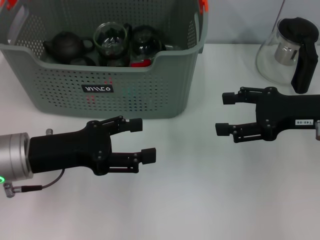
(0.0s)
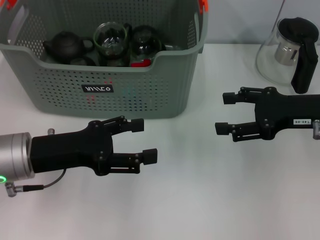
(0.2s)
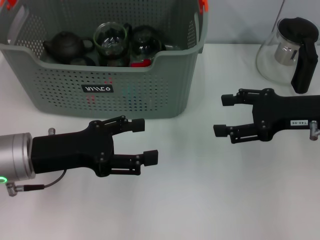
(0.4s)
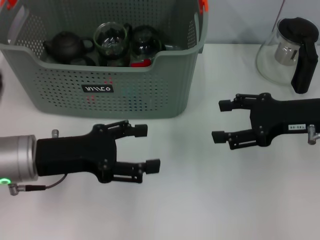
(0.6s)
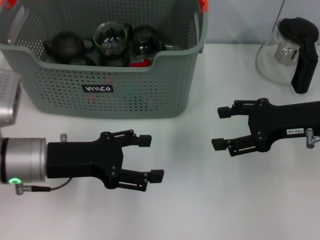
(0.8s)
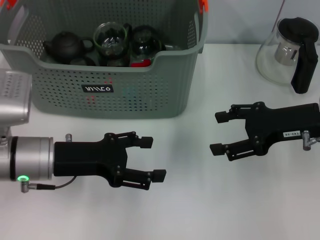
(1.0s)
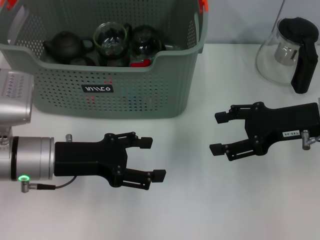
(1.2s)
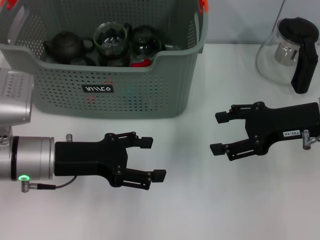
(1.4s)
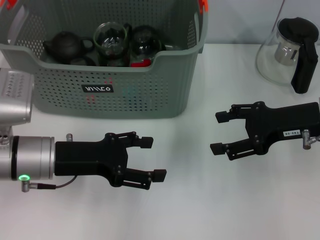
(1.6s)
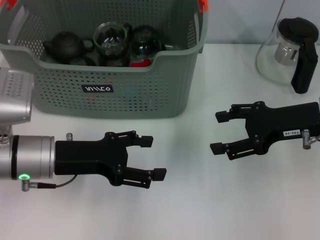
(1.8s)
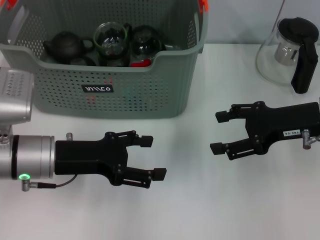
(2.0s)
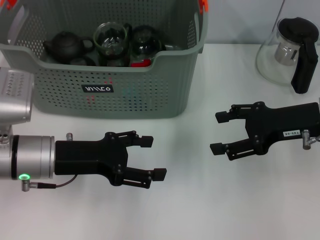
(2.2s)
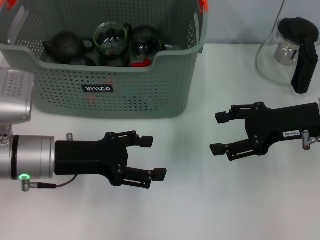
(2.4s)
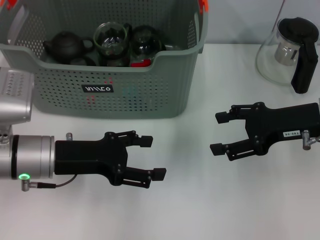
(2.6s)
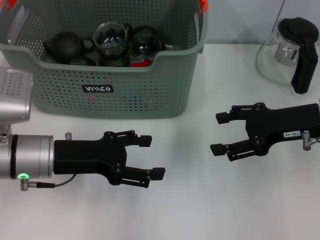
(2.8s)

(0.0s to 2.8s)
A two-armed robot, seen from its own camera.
Task of the whole recording: pick up the teacup on the table and place it into the storage bin, pick up the block on the table and place it into the storage bin.
0.0s - 1.4s: The grippers move only a little.
1.4s - 2.8s: Both grippers stay put.
